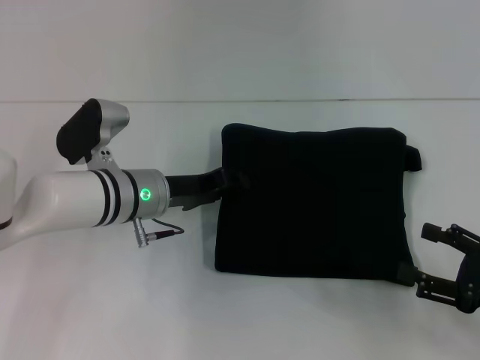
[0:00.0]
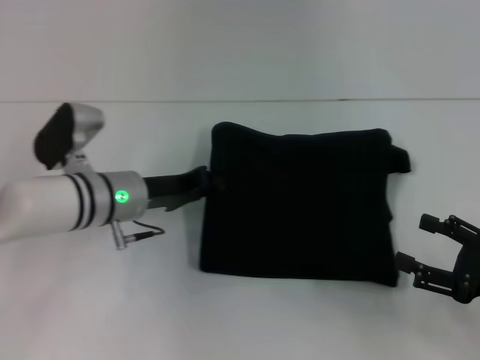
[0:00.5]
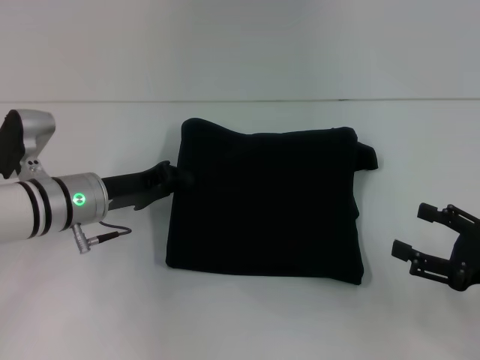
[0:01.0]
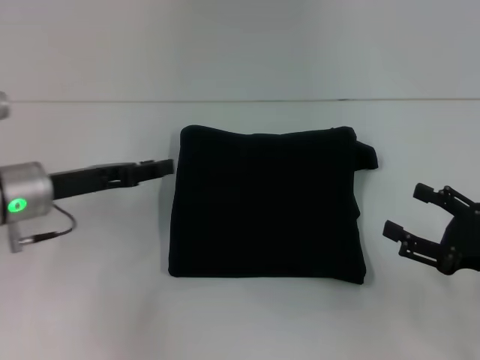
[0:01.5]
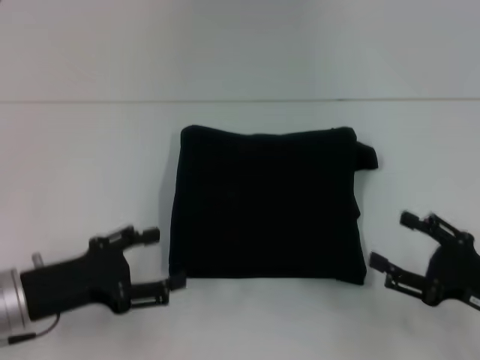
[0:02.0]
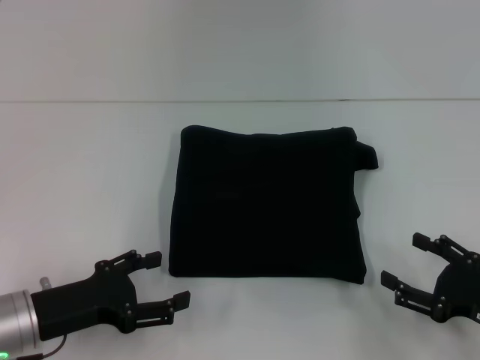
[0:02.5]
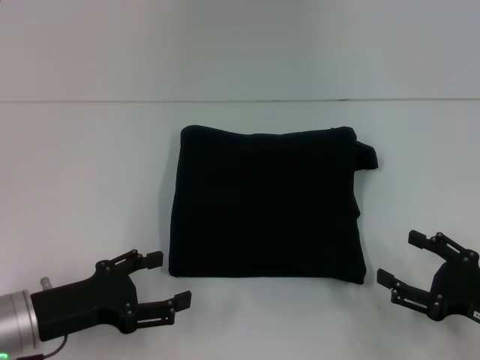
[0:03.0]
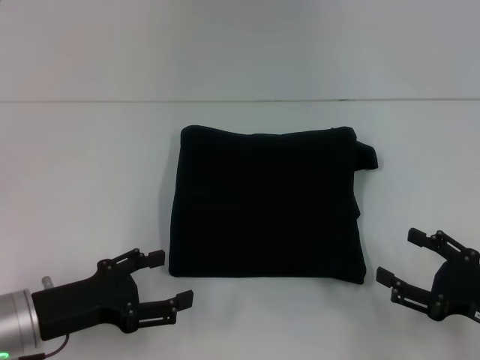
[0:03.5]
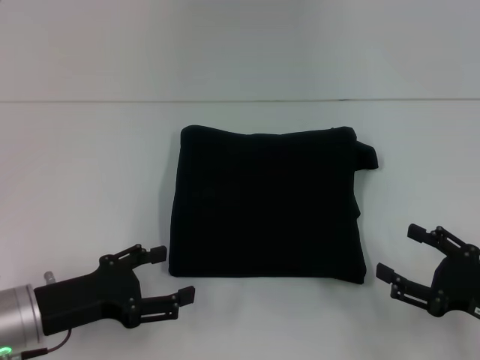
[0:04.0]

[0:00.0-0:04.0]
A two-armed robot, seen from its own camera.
0:00.0 to 0:02.0: The left gripper shifts roughly 15 cm backward and to the left, and closes, then opens again.
0:02.0 to 0:04.0: The grippers make only small movements.
